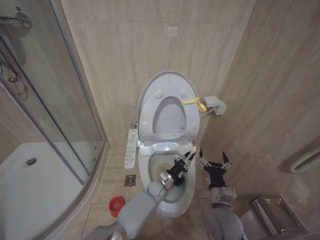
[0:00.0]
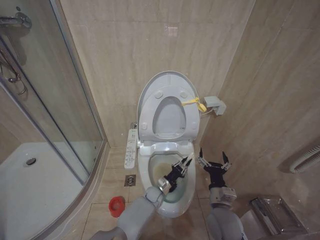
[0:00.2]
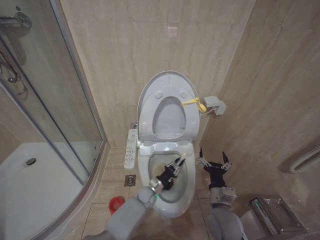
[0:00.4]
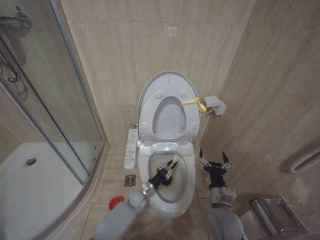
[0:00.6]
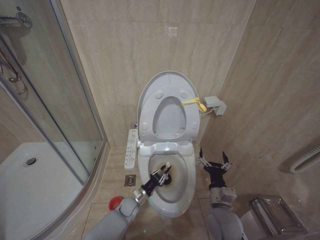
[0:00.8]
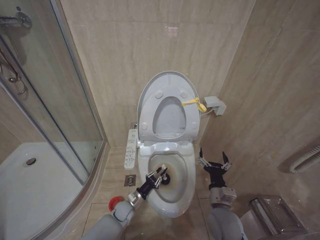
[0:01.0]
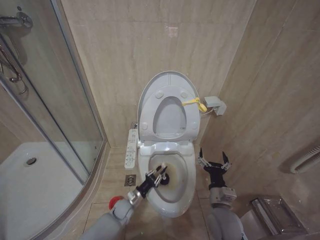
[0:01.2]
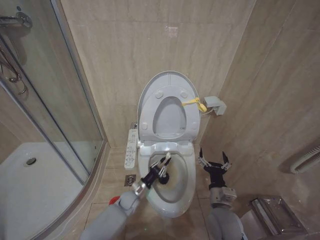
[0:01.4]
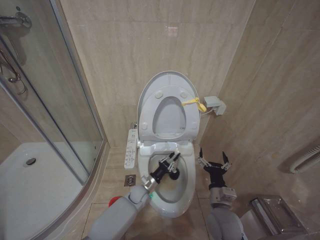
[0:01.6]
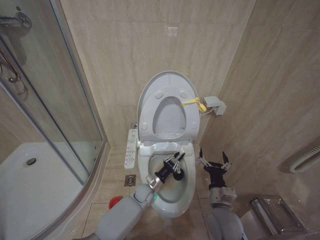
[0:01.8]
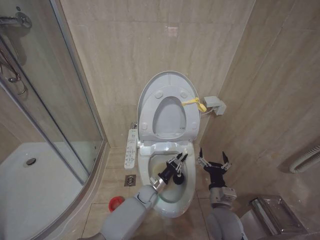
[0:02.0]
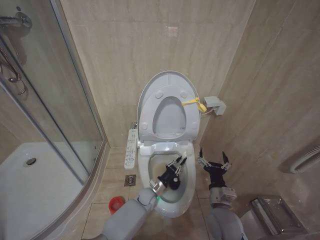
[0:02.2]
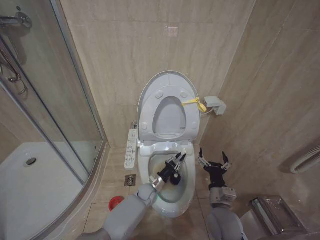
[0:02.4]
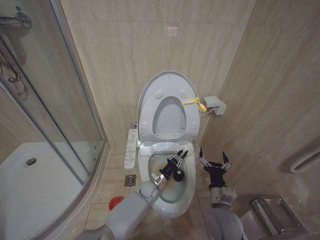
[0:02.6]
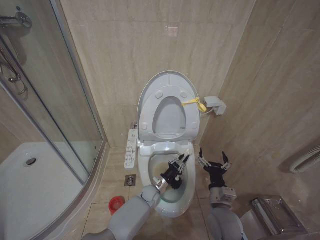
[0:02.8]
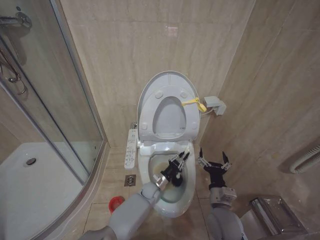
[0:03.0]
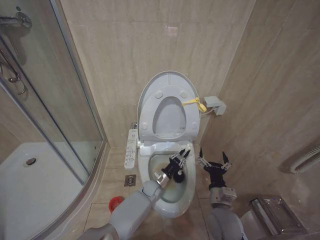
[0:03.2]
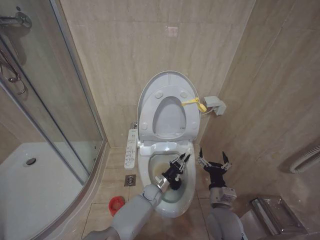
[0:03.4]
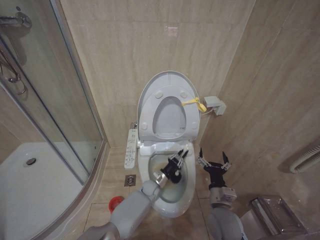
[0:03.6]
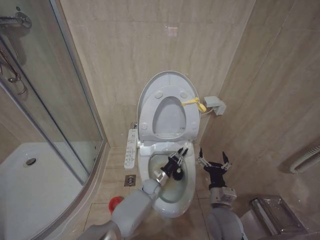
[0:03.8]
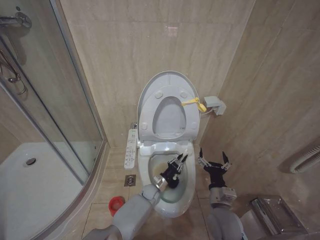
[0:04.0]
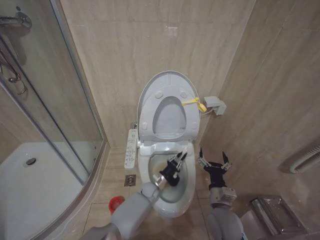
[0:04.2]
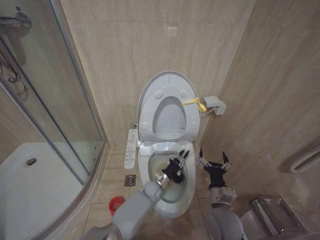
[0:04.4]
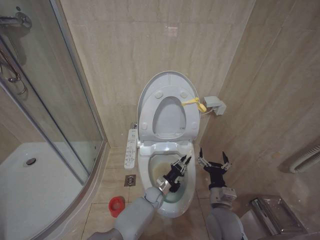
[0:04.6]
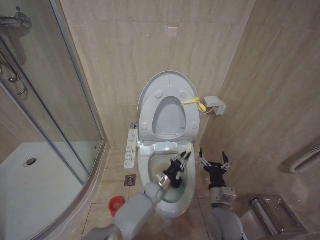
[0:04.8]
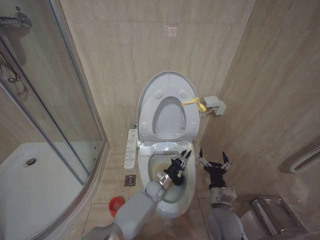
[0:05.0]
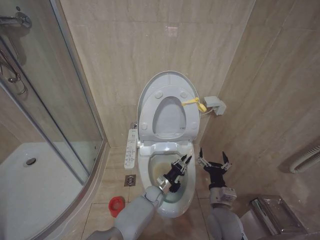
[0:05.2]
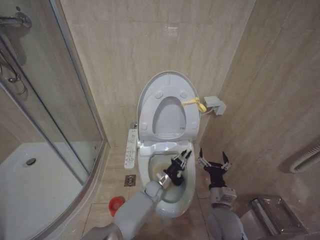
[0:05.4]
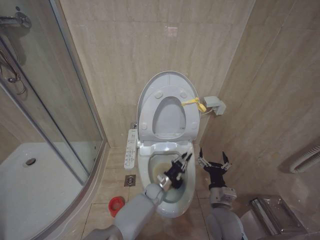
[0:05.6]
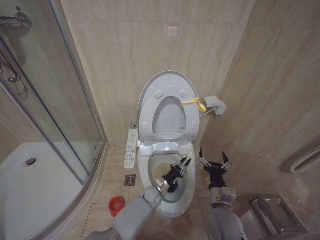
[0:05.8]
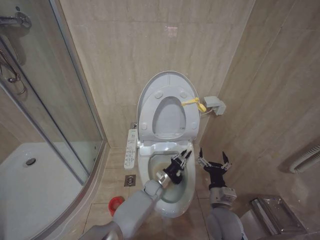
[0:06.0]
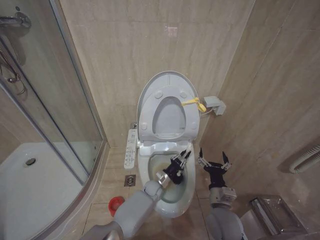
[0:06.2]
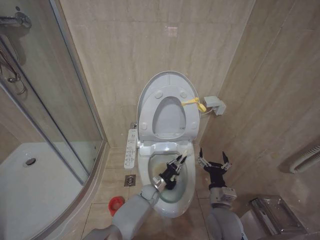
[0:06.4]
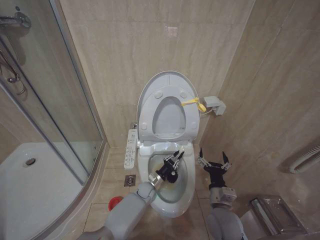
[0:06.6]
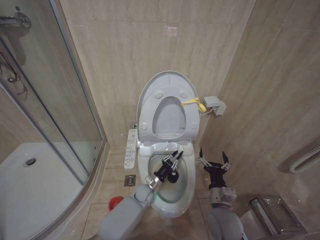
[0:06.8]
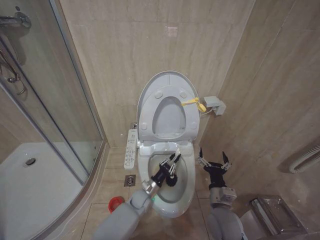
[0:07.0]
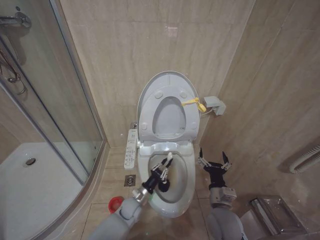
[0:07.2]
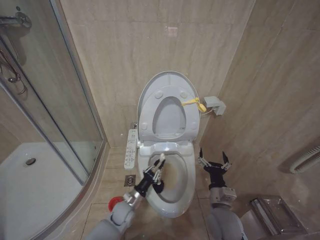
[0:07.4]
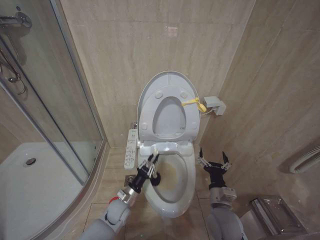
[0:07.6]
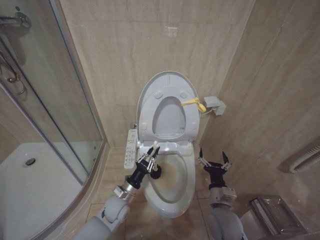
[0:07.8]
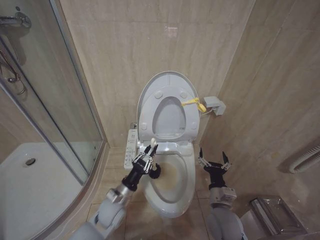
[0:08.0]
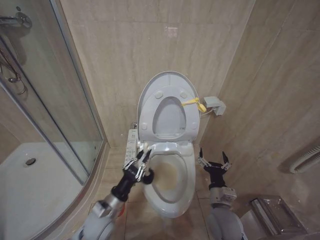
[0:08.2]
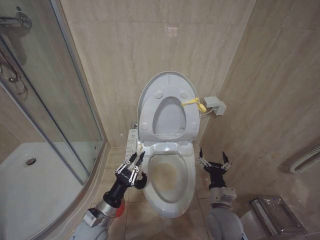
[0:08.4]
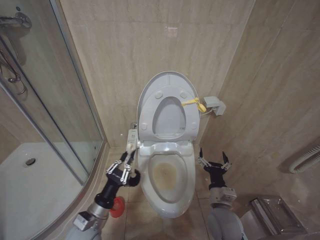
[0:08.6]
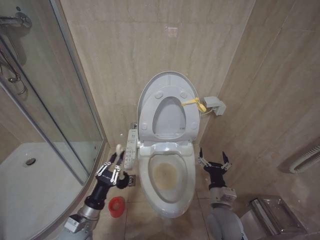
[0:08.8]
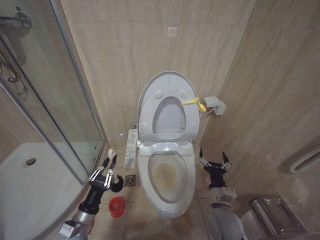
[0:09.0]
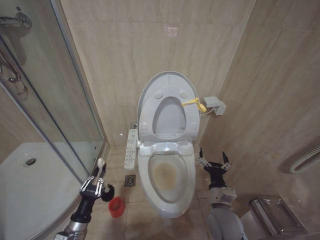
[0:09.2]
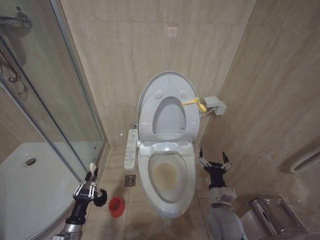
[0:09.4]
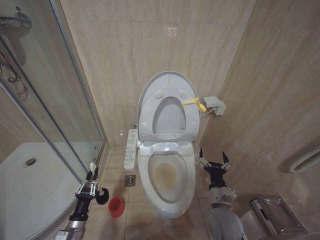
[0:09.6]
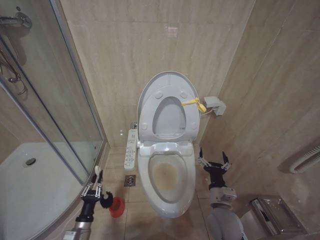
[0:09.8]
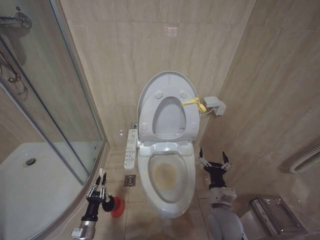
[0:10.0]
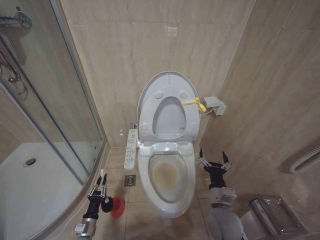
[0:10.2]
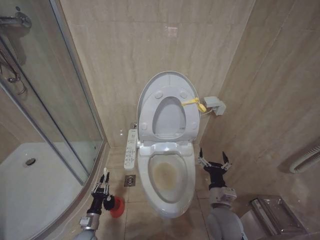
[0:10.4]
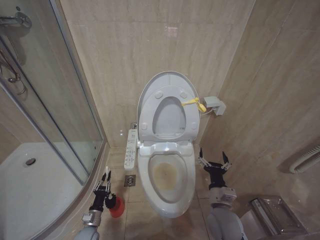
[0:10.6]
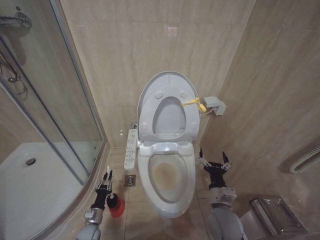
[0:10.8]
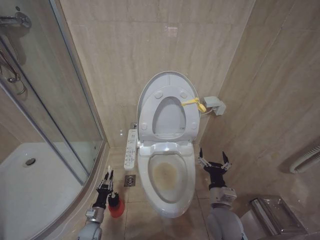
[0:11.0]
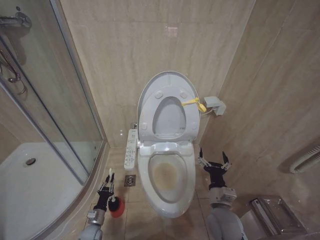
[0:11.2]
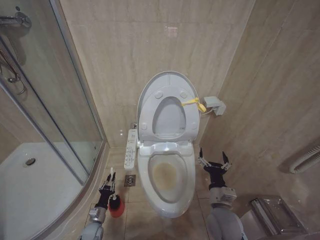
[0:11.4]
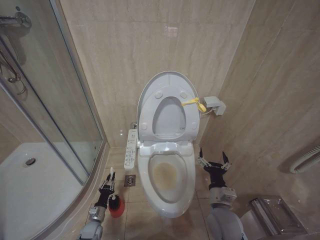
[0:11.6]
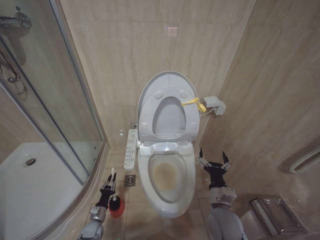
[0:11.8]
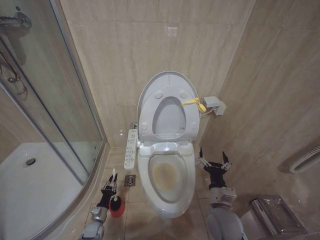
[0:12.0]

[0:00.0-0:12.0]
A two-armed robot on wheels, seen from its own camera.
Task of the whole recording: Open the toilet lid, clean the toilet bowl with a toilet brush, close the toilet lid, and flush.
0:00.0 to 0:01.6: The left gripper heads to the left, covering about 10 cm.
0:01.6 to 0:03.0: The left gripper travels to the right by approximately 5 cm.
0:06.0 to 0:07.6: The left gripper moves to the left and backward, some 20 cm.
0:07.6 to 0:09.0: The left gripper moves backward, upward and to the left, approximately 20 cm.
0:09.0 to 0:10.4: The left gripper moves downward, some 20 cm.
0:10.4 to 0:12.0: The left gripper goes about 10 cm forward and downward.

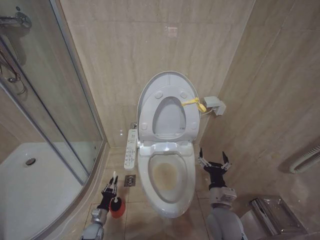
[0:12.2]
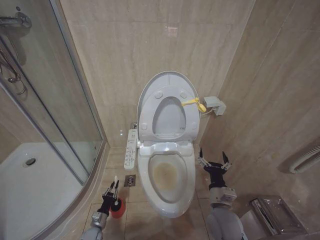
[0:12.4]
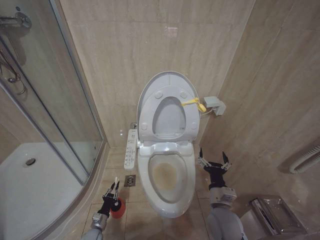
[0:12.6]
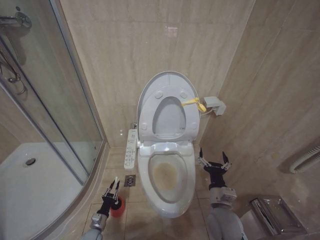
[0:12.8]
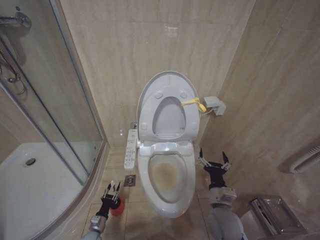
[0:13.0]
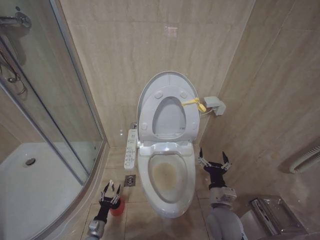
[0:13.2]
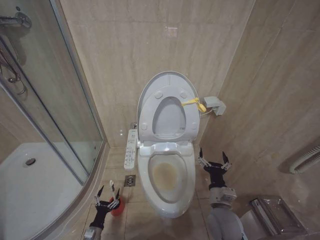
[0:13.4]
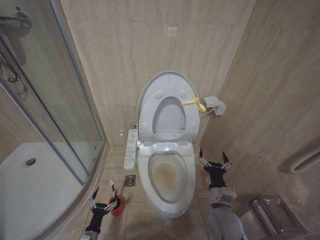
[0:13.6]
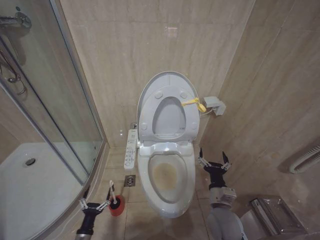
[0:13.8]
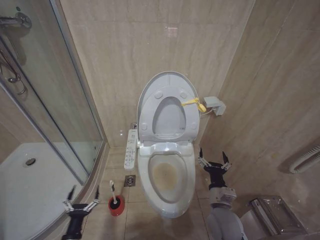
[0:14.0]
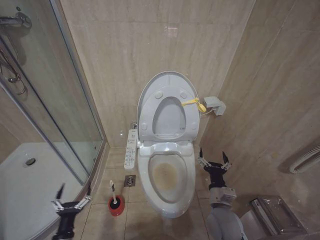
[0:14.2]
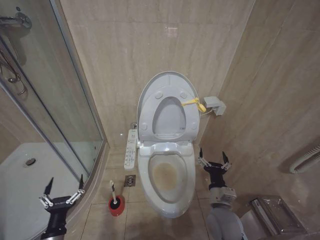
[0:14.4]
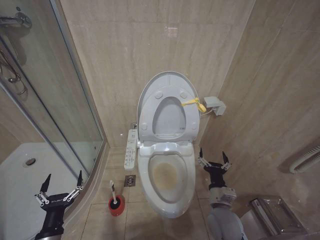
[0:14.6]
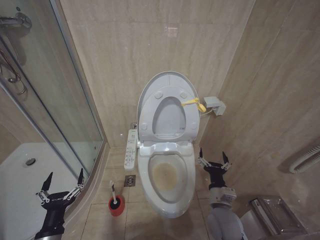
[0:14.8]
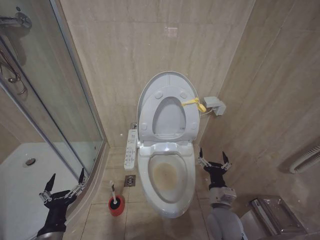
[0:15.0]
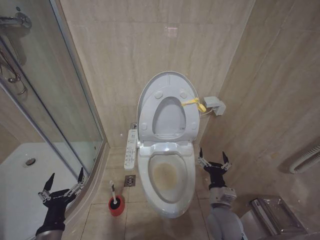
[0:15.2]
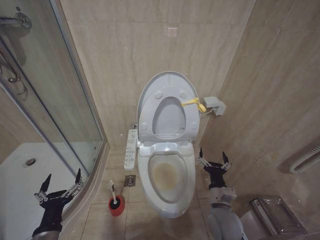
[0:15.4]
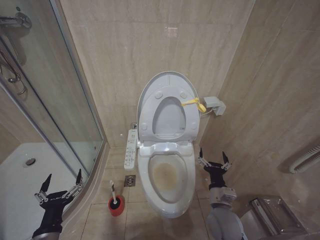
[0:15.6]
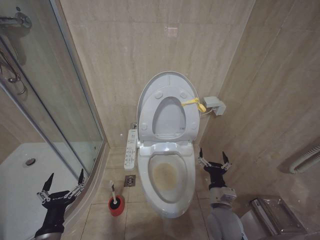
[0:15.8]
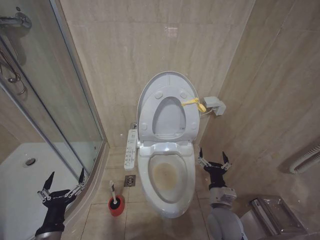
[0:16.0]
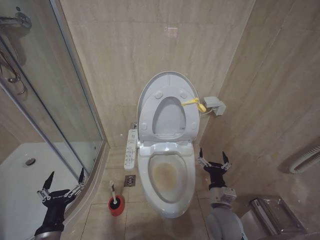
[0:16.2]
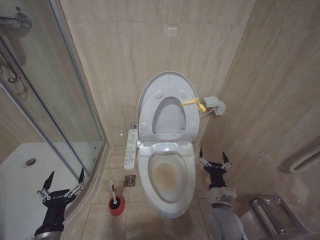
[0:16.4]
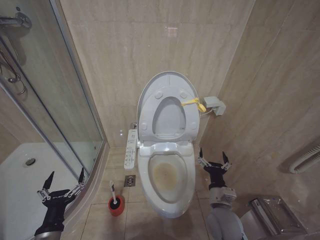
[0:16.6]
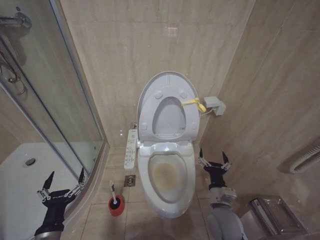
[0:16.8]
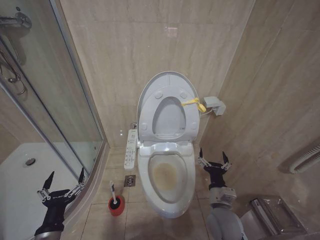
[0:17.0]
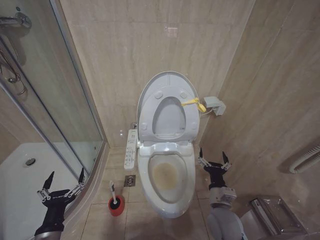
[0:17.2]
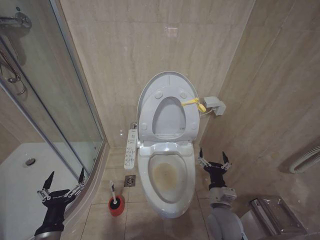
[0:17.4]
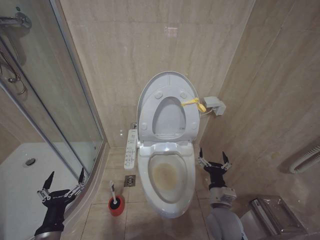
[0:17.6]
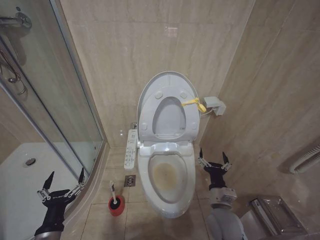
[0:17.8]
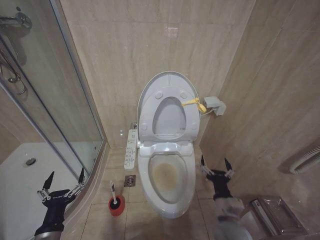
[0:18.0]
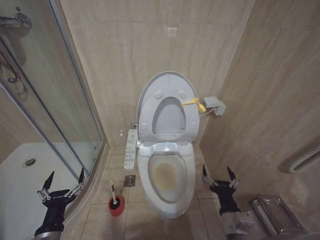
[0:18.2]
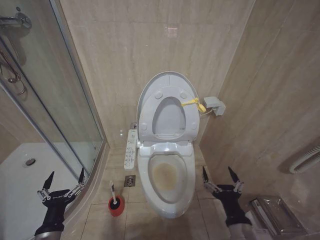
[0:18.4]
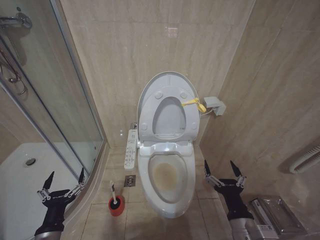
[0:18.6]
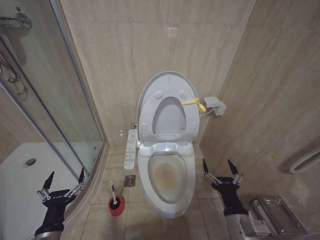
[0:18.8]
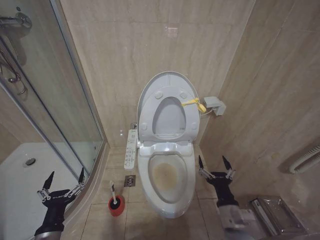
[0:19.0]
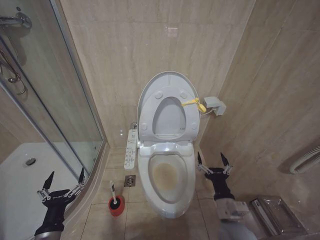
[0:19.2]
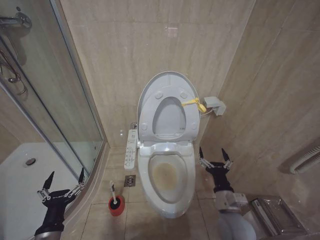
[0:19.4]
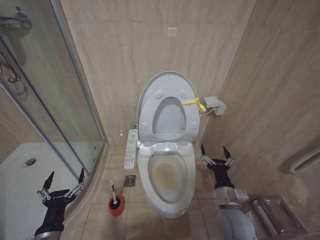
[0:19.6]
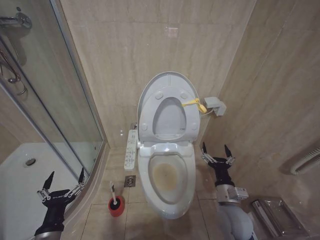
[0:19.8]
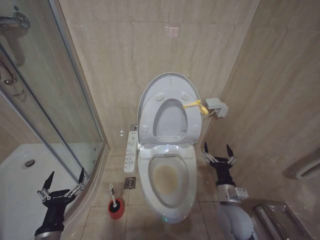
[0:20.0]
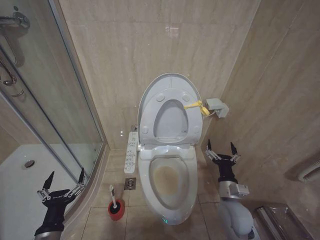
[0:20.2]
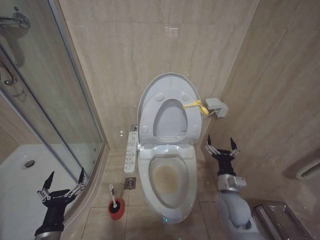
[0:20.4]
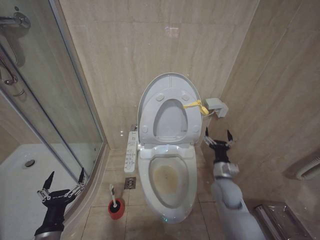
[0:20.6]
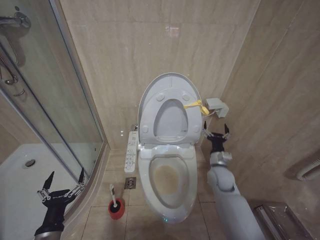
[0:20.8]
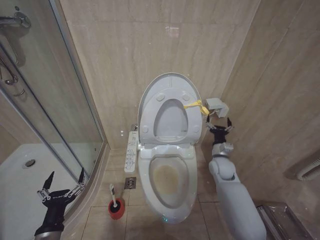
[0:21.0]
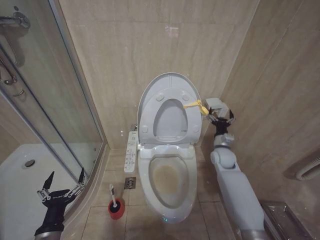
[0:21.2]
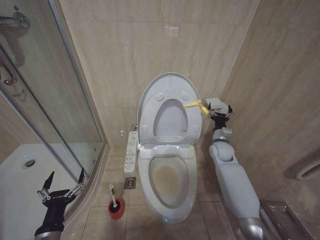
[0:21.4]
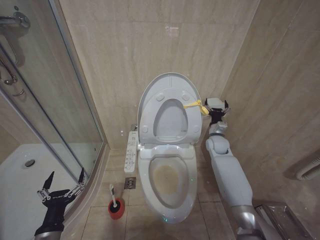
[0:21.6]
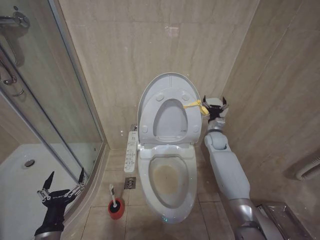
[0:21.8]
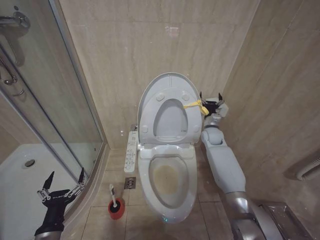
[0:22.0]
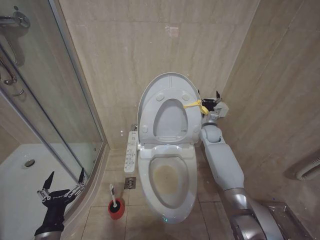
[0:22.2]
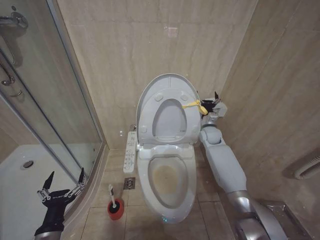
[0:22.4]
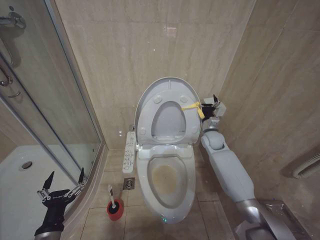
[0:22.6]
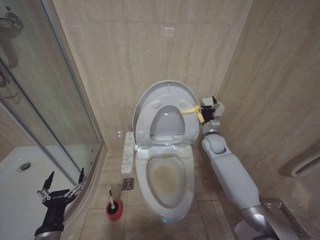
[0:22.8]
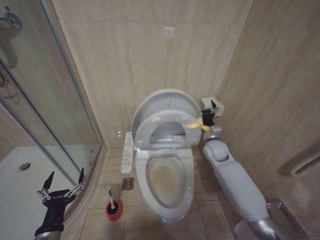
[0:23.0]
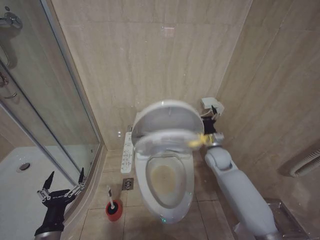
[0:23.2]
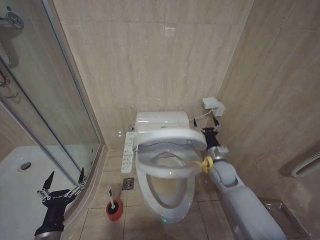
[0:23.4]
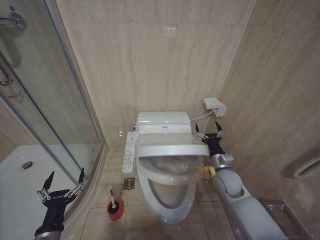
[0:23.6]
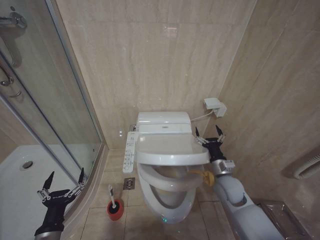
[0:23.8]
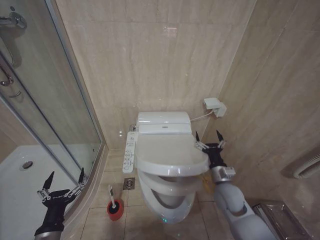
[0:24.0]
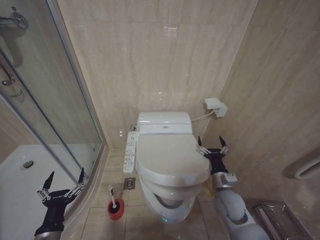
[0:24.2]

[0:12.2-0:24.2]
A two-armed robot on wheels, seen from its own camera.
Task of the whole recording: Open the toilet lid, clean the toilet bowl with a toilet brush, close the toilet lid, and flush.
0:12.2 to 0:13.8: The left gripper shifts roughly 10 cm backward and upward, and opens up.
0:13.8 to 0:15.2: The left gripper heads upward, covering about 25 cm.
0:16.6 to 0:18.2: The right gripper moves backward, about 5 cm.
0:18.2 to 0:19.8: The right gripper goes about 5 cm forward.
0:19.8 to 0:21.2: The right gripper heads forward, covering some 20 cm.
0:21.2 to 0:22.6: The right gripper travels forward and upward by approximately 10 cm.
0:22.6 to 0:24.2: The right gripper heads backward, covering approximately 25 cm.
